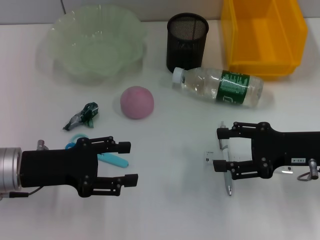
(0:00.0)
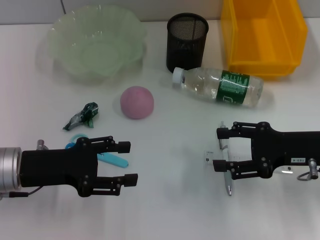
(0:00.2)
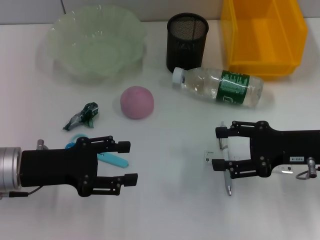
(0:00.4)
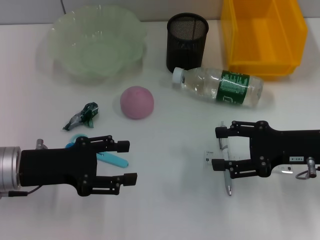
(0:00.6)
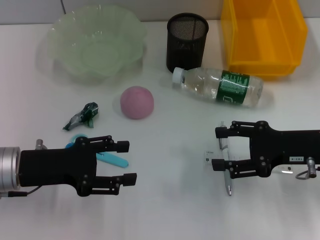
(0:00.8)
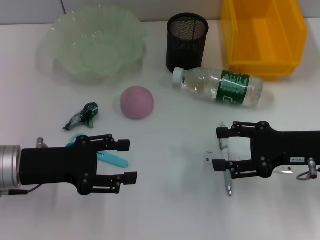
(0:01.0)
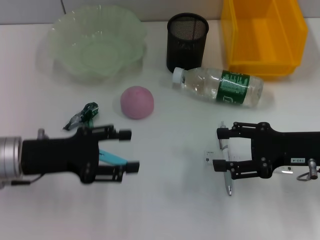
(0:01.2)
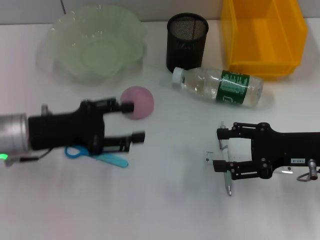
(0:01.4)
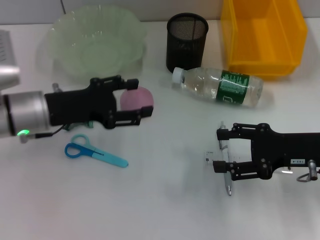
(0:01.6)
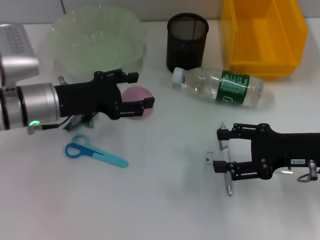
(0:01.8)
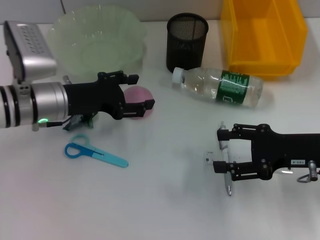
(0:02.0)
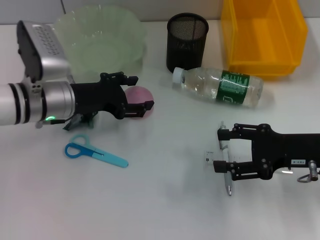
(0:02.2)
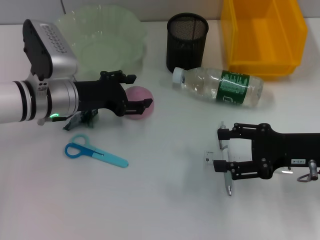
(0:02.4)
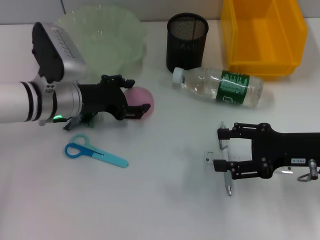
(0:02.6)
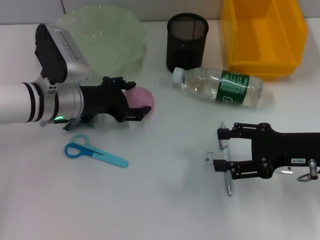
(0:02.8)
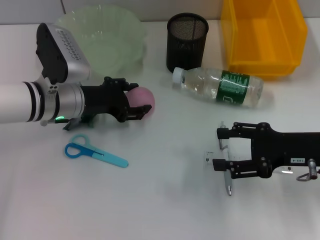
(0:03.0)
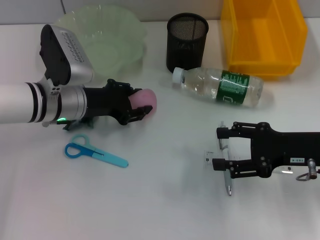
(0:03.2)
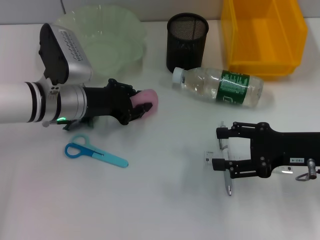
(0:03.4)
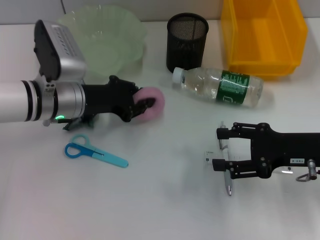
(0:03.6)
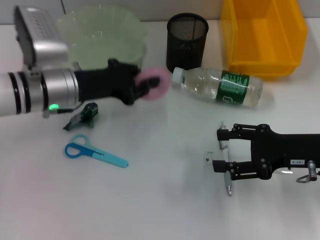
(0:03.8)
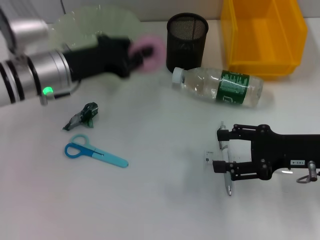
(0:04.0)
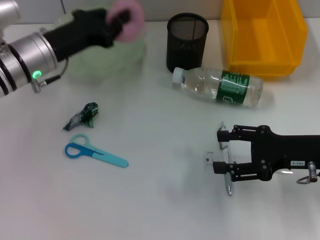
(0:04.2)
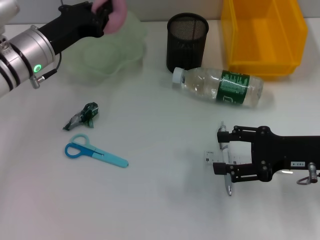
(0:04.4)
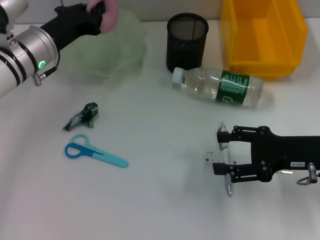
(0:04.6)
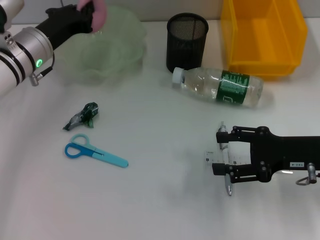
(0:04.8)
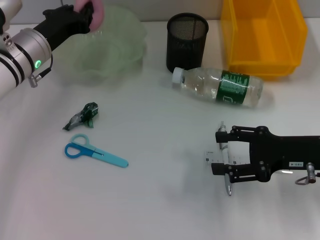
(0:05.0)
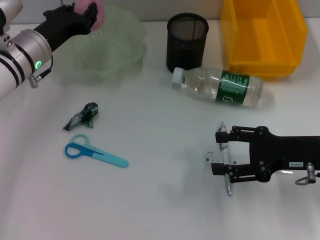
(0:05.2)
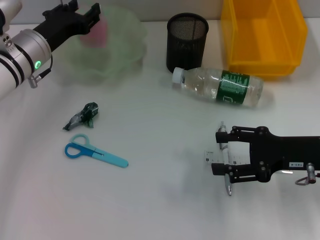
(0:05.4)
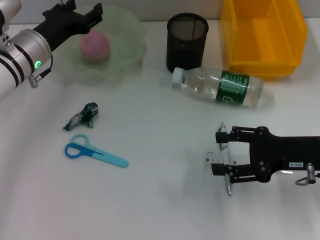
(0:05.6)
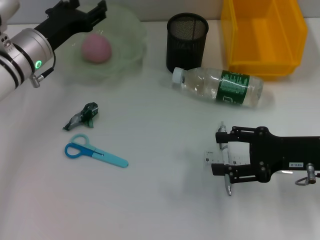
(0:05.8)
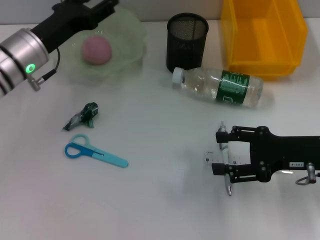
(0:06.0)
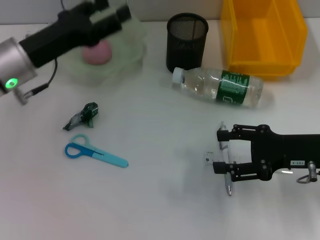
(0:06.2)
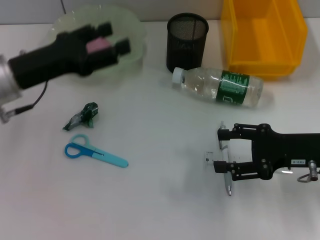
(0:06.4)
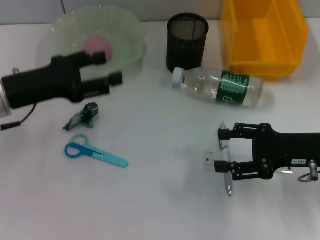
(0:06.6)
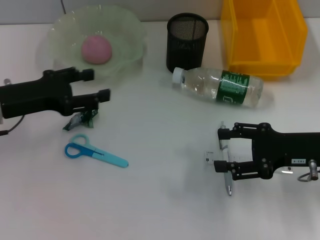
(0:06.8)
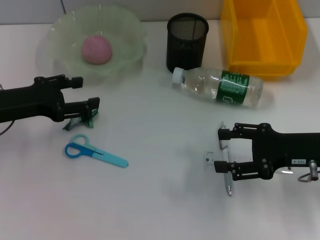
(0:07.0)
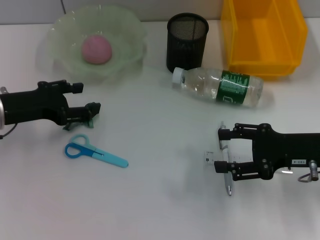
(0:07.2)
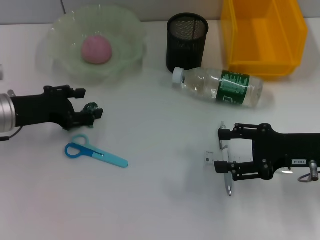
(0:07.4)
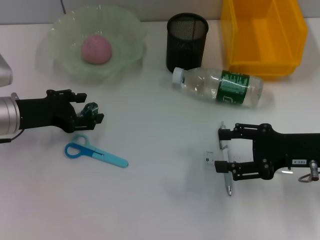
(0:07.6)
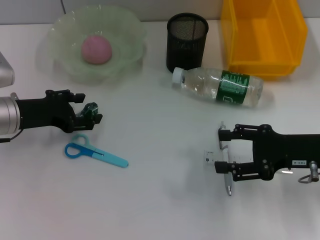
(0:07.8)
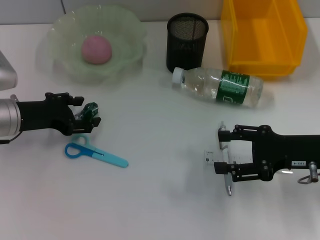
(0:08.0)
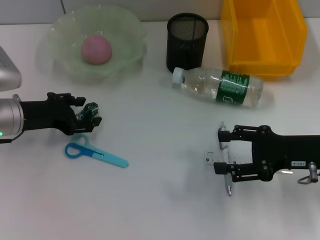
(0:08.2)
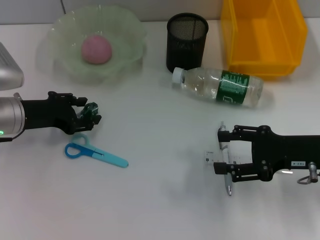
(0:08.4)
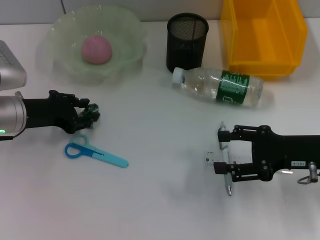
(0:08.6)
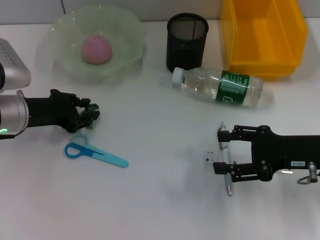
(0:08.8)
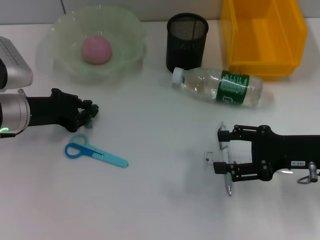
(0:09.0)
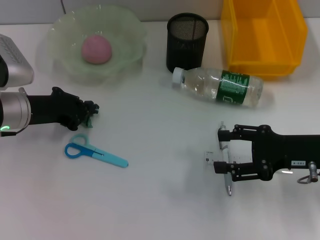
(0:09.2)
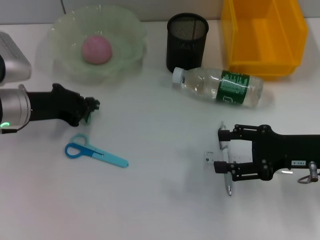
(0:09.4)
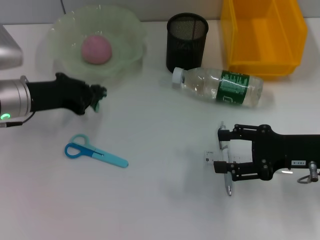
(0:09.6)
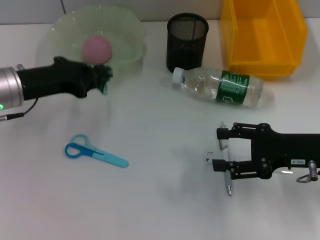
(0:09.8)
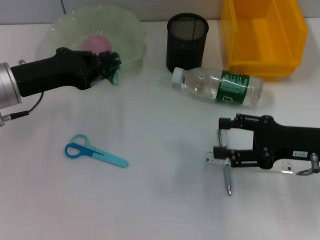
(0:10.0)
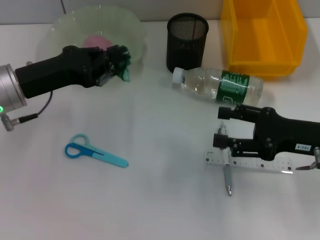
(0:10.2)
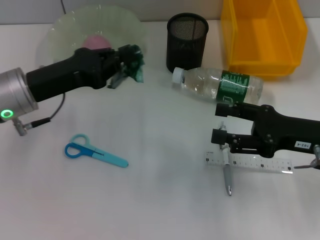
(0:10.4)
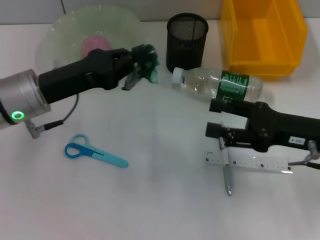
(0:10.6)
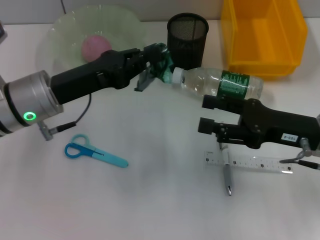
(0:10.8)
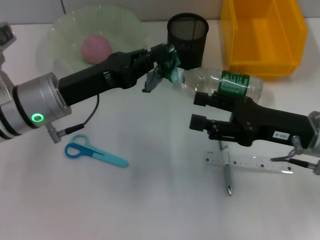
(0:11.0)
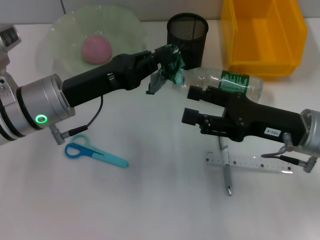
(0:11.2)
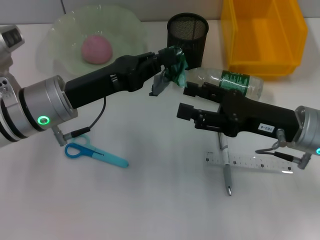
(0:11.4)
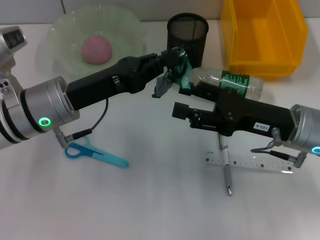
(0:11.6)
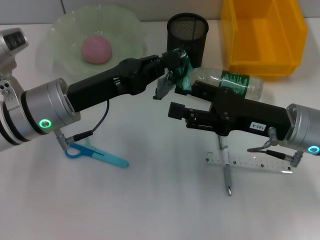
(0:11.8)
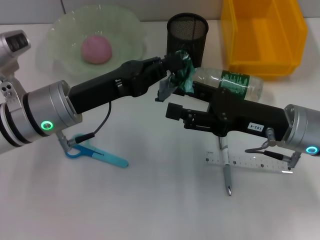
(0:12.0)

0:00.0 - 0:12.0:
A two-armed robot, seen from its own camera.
Step, 0:00.0 - 0:03.4: Grab the peach with the left hand.
Step, 0:03.6 - 0:05.6: Place the peach into the fruit bowl with the left hand.
Step, 0:05.8 - 0:09.2: Grab the plastic with the left hand.
0:00.0 - 0:01.6: The left gripper travels forward by about 5 cm.
0:01.6 - 0:03.0: The left gripper ends up about 5 cm from where it was.
0:03.0 - 0:04.4: The left gripper shifts by some 5 cm, and closes up.
0:04.4 - 0:06.0: The left gripper opens.
0:06.0 - 0:07.6: The left gripper changes place by about 10 cm.
0:07.6 - 0:09.0: The left gripper closes up.
0:09.0 - 0:10.4: The left gripper changes place by approximately 5 cm.
0:10.4 - 0:12.0: The left gripper travels to the right by roughly 5 cm; the right gripper is displaced to the left by roughly 5 cm.

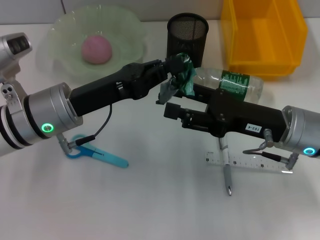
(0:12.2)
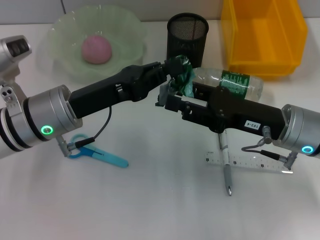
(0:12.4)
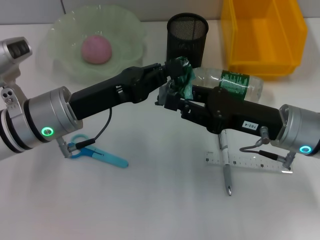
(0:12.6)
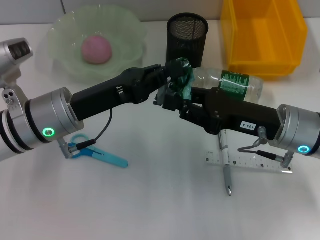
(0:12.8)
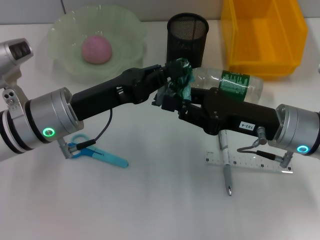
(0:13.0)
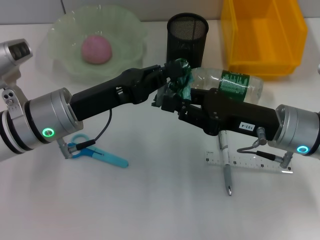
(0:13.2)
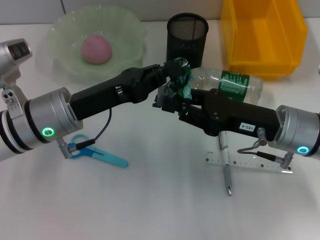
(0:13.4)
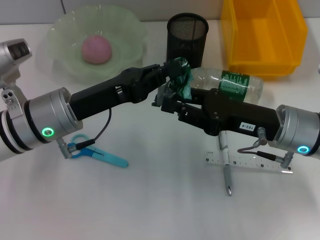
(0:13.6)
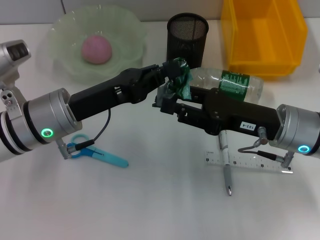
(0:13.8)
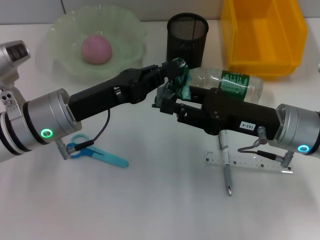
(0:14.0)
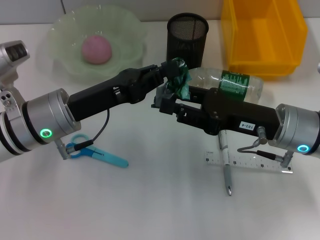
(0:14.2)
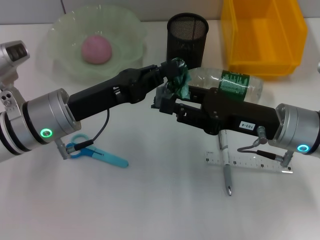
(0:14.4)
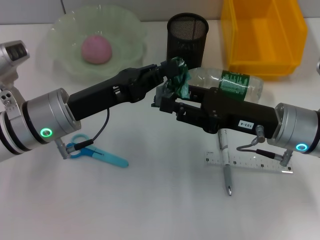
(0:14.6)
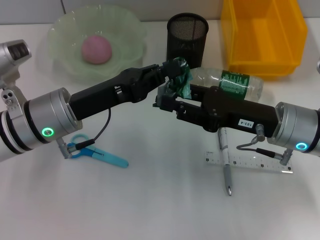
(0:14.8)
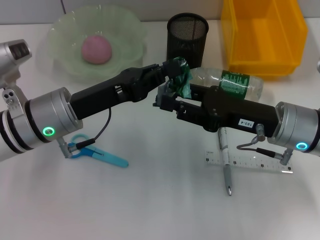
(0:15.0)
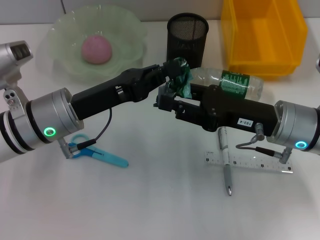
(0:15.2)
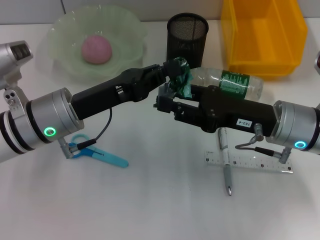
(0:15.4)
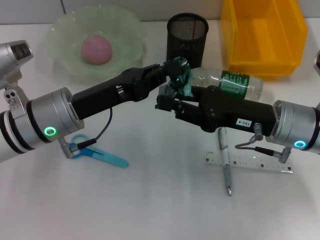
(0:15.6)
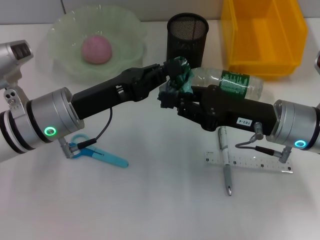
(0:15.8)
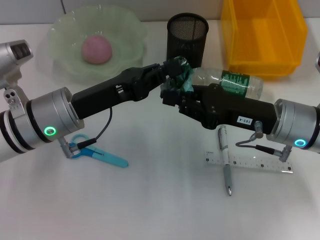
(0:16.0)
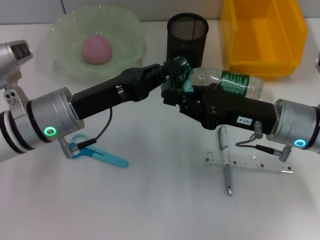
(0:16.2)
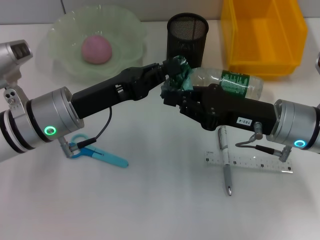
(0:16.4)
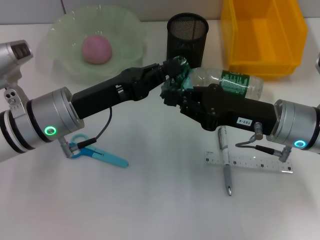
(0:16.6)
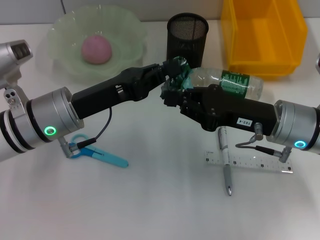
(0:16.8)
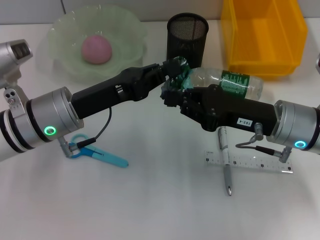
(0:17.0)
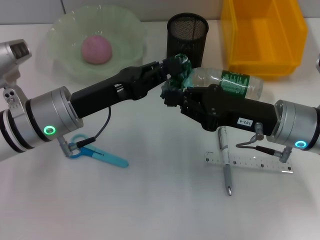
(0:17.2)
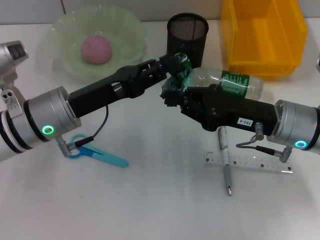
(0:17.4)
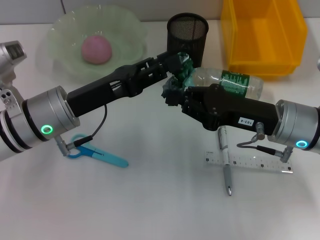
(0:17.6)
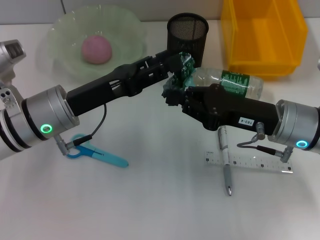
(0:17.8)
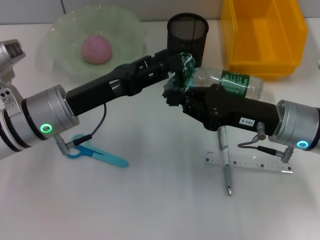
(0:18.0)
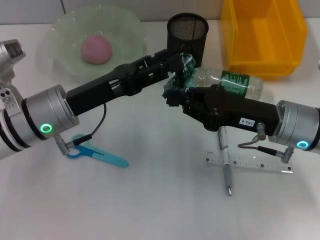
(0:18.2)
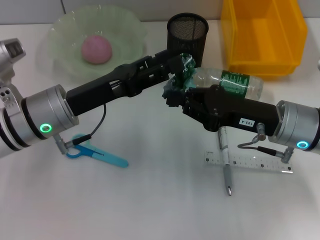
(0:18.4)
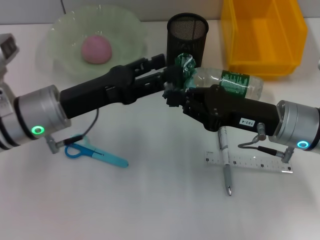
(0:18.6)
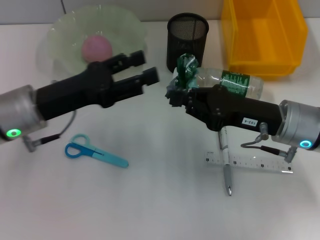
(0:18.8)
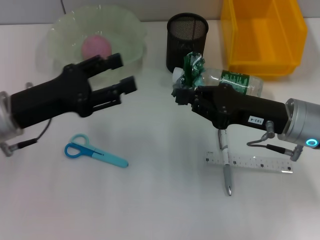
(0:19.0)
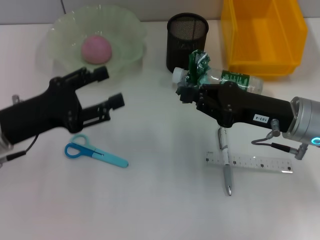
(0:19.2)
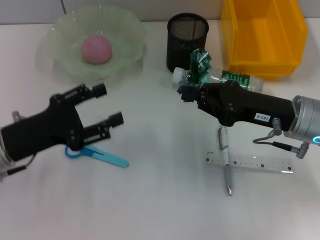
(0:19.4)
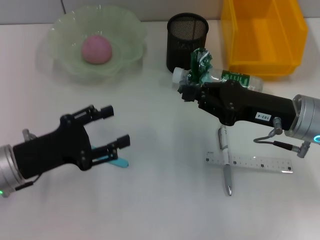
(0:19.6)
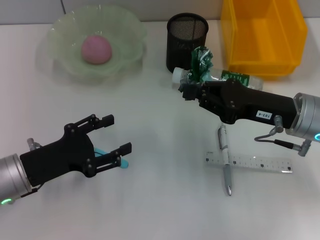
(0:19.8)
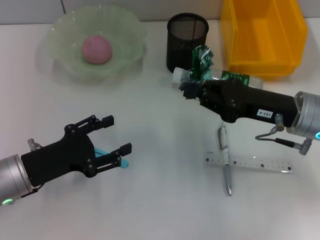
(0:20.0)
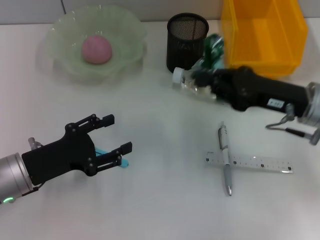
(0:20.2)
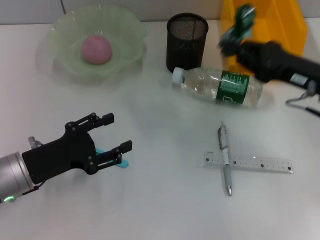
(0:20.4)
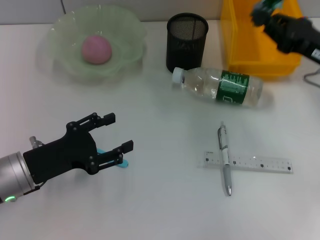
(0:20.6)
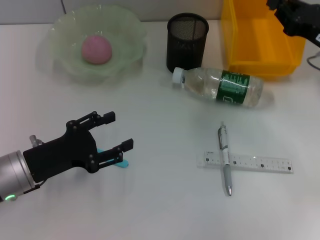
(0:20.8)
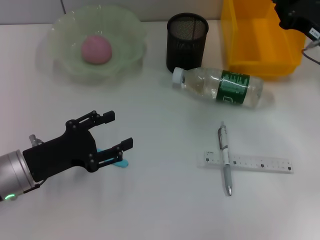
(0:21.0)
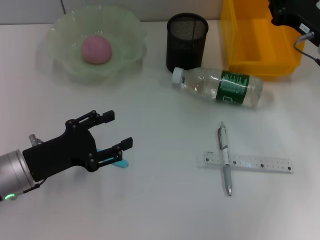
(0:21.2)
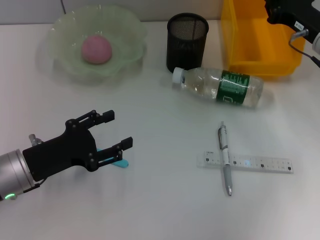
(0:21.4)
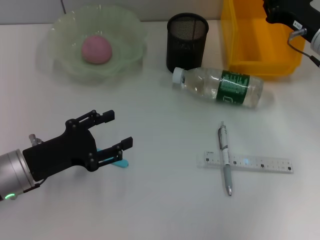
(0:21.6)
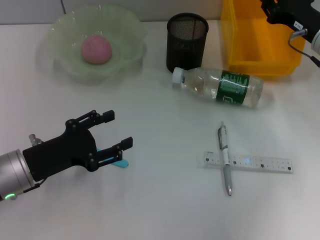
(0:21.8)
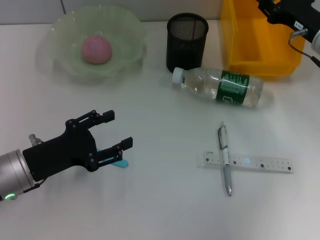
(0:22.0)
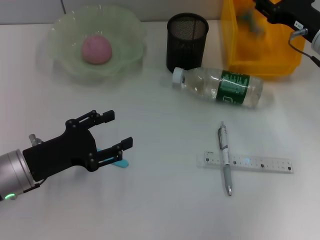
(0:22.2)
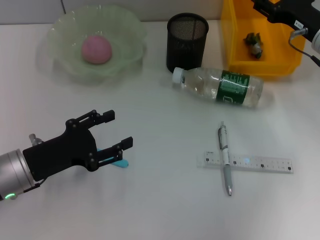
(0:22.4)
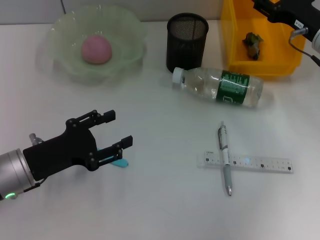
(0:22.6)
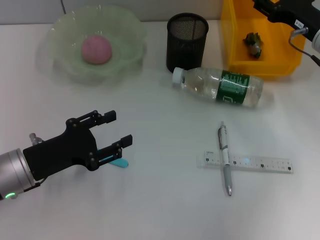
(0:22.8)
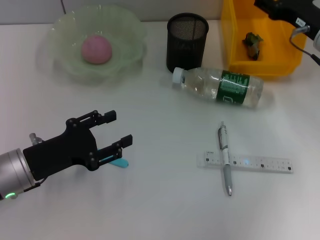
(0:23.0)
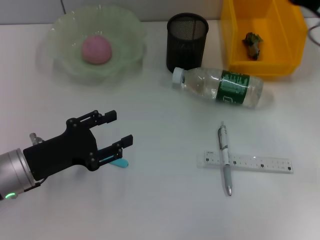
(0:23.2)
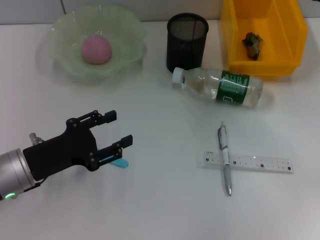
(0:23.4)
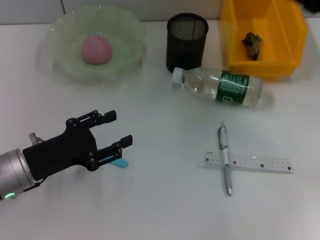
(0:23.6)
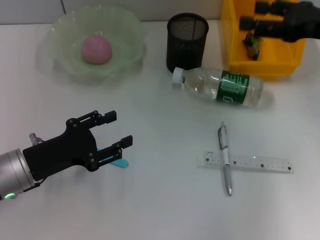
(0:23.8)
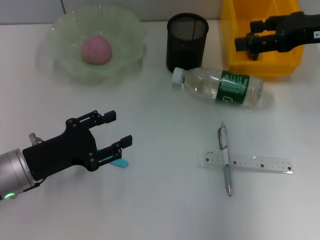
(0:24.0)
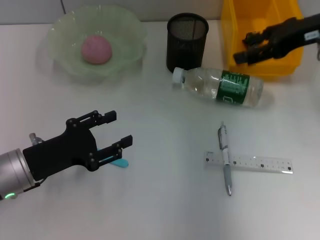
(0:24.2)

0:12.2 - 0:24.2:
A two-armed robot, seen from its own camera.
Step, 0:12.2 - 0:18.4: Pass the plastic from the left hand to the right hand.
Step, 0:18.6 - 0:23.2: Place the plastic into the trash can with the right hand.
0:12.2 - 0:13.8: The right gripper closes its fingers.
0:13.8 - 0:15.2: The two grippers keep their place.
0:15.2 - 0:16.6: The right gripper closes.
0:16.6 - 0:18.2: The left gripper opens.
0:18.2 - 0:19.8: The left gripper goes about 10 cm to the left, backward and downward.
0:19.8 - 0:21.2: The right gripper moves forward and to the right, about 10 cm.
0:21.2 - 0:22.6: The right gripper opens.
0:22.6 - 0:24.2: The right gripper heads upward, covering approximately 10 cm.
